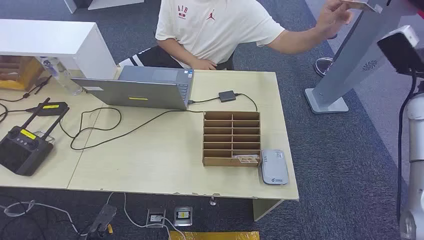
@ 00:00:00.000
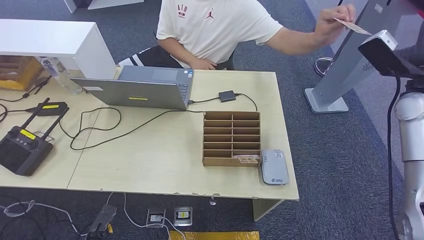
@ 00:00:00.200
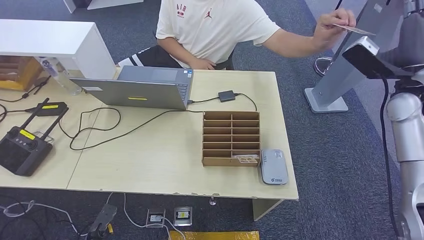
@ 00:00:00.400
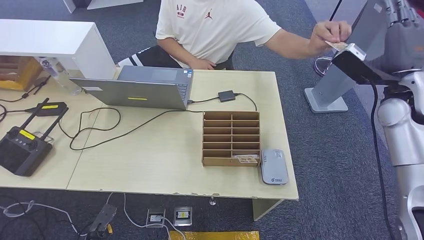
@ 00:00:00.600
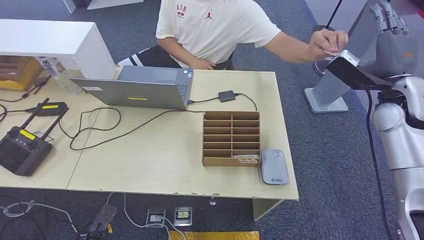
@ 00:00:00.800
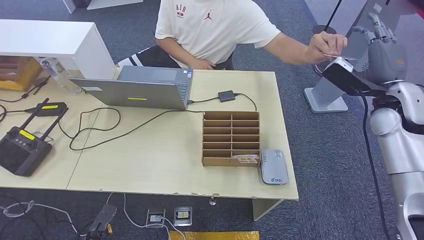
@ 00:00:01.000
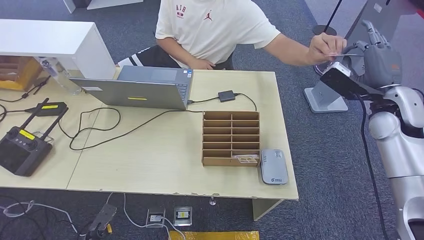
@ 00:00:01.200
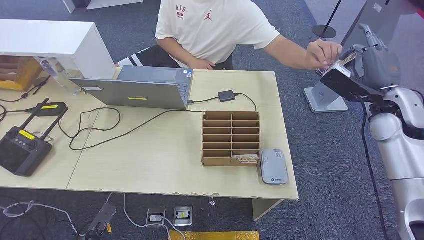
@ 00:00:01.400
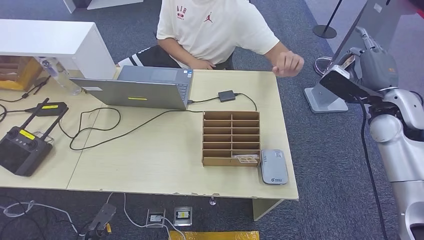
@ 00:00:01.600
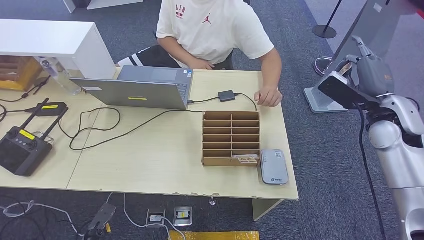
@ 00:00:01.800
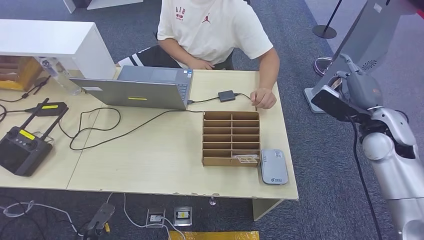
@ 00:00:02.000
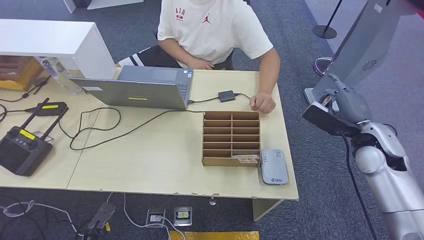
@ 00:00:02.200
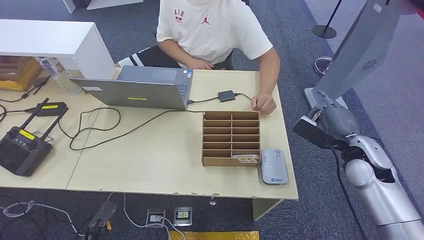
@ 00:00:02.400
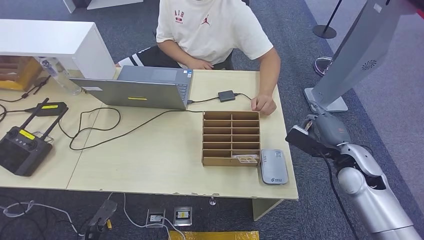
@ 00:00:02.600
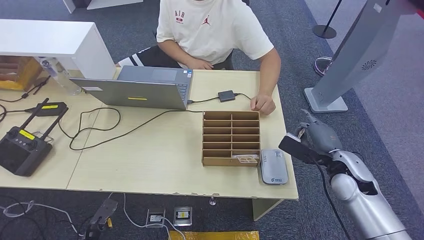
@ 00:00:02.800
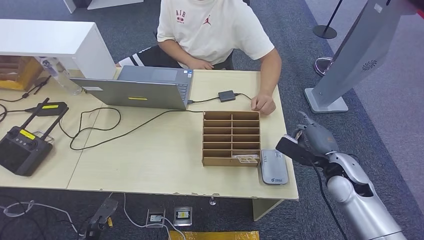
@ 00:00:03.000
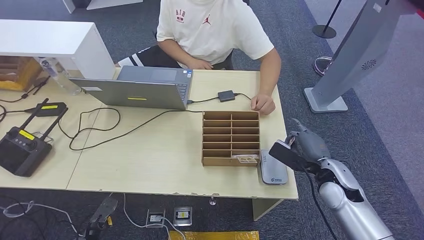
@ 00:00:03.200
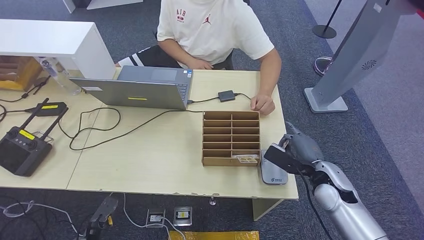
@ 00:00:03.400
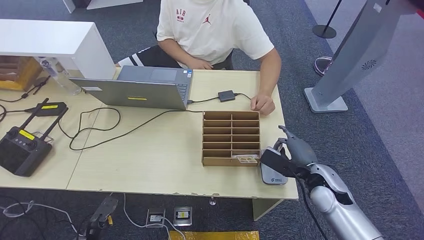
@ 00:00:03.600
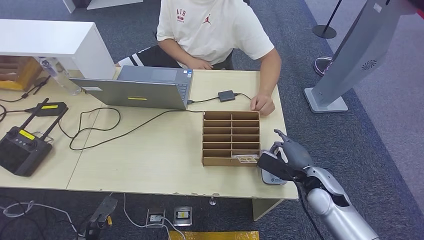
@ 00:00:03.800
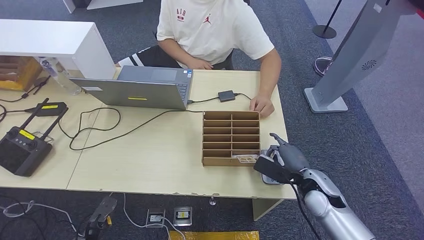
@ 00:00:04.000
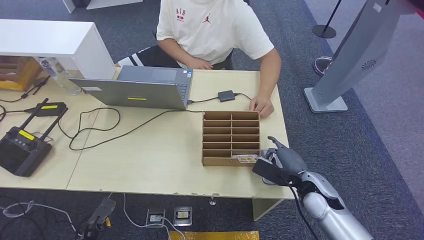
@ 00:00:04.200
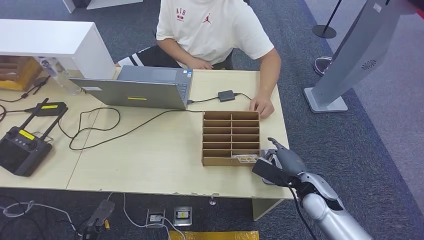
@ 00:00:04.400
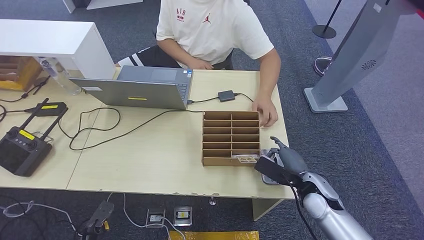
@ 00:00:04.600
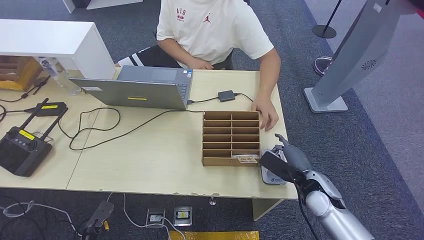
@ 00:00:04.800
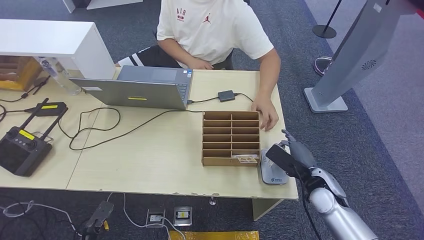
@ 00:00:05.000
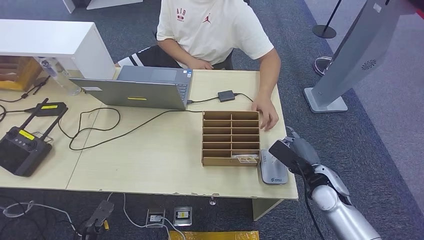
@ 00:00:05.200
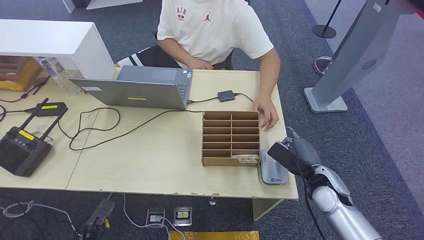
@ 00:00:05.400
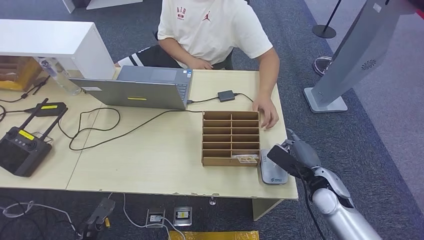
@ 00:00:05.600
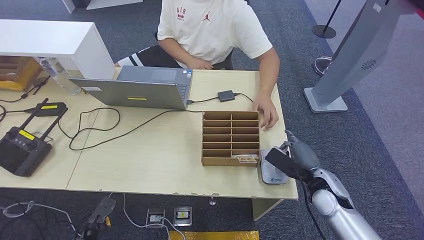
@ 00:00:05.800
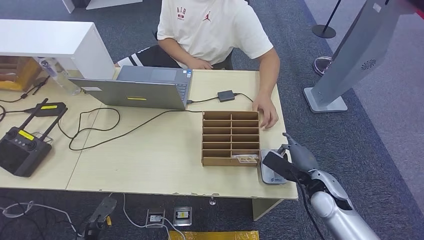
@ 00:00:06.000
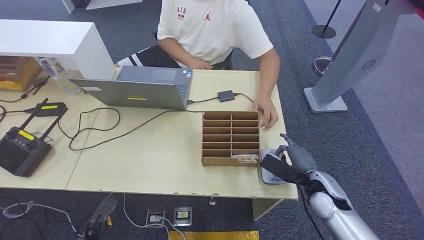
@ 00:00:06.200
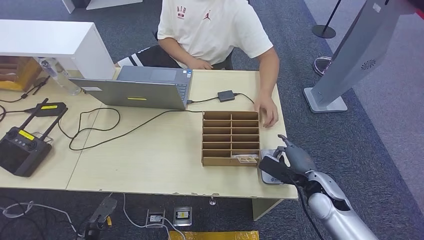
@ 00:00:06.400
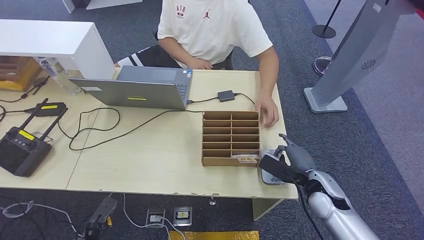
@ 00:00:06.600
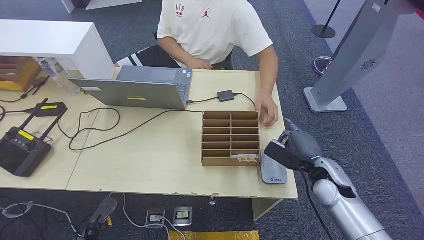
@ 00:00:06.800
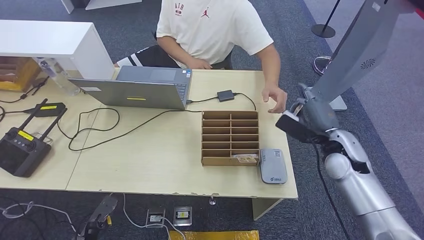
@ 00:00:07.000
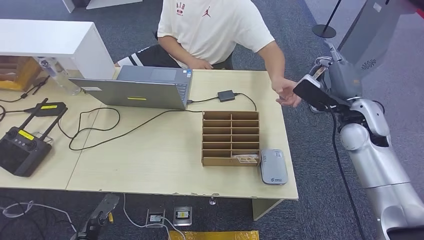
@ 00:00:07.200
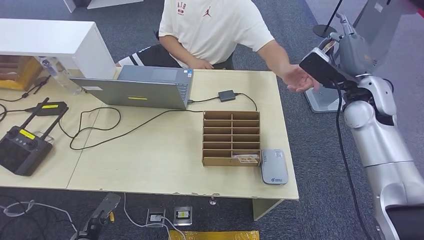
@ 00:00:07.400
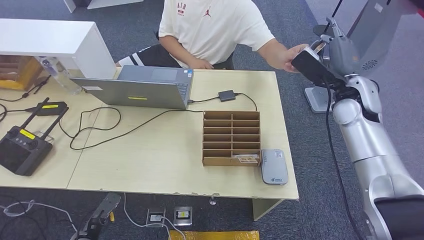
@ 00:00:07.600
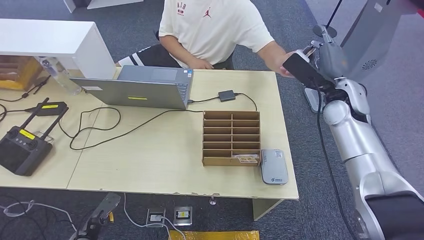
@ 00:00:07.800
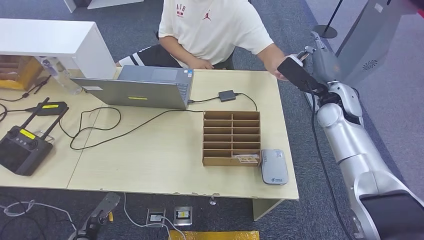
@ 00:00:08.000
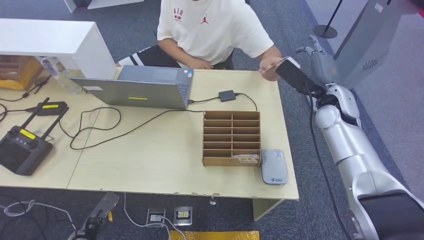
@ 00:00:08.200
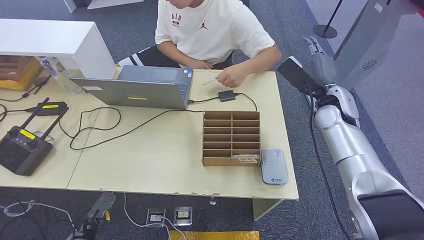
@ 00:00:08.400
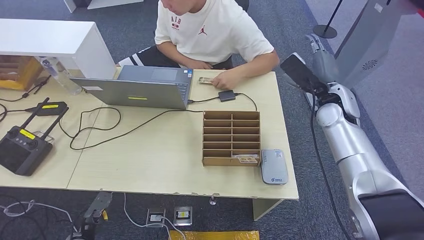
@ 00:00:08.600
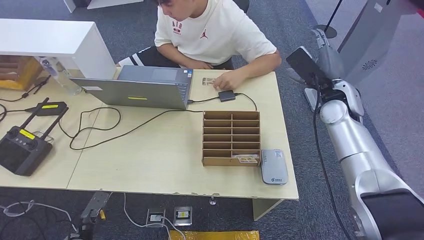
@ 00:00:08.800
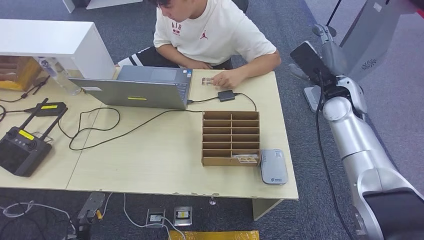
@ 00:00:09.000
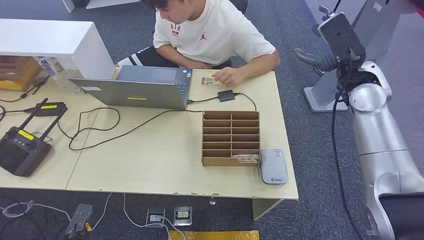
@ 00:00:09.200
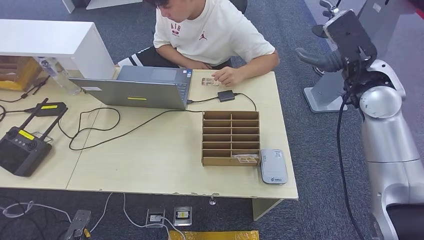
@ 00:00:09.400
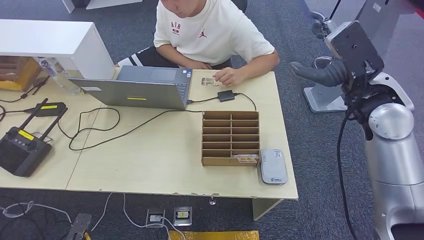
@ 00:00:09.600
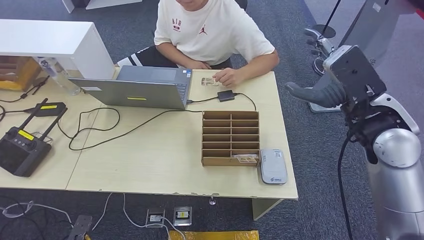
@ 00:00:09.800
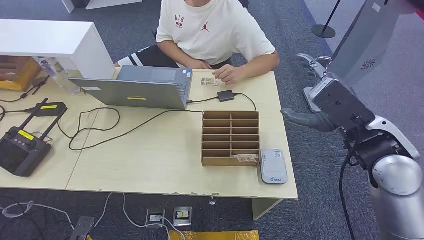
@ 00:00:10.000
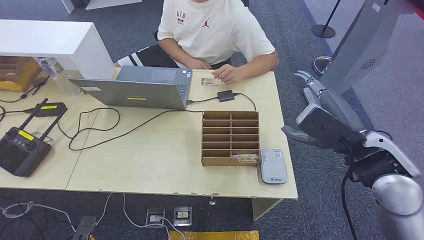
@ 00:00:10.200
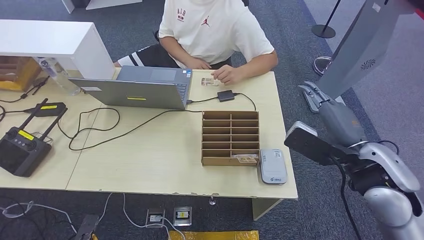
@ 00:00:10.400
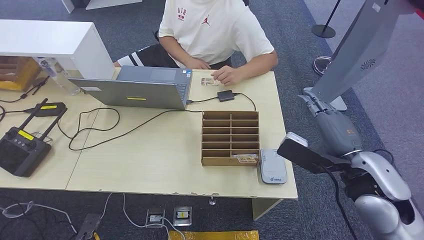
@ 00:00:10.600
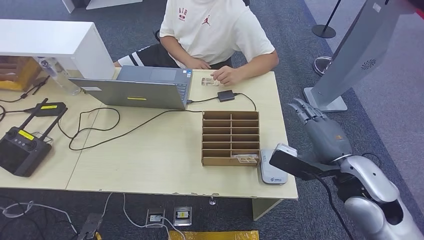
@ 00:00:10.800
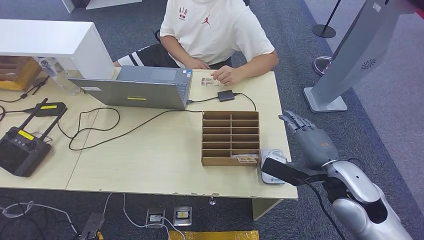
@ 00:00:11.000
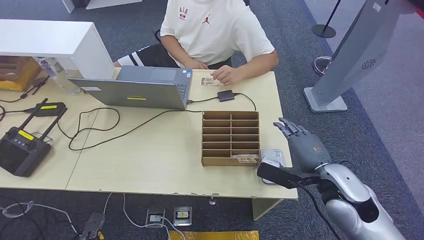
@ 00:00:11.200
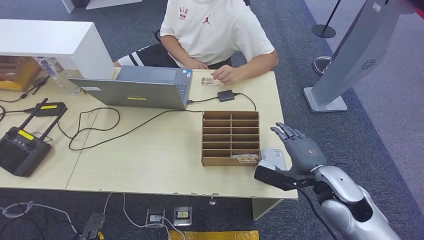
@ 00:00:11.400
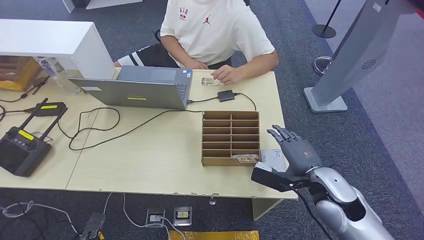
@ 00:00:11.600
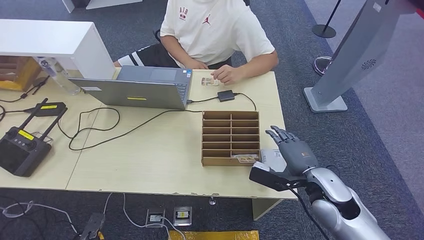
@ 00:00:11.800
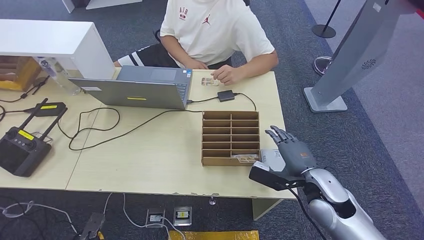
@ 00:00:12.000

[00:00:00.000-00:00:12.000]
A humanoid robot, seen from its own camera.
Step, 00:00:00.000 to 00:00:01.600: Take the ID card from the person's hand.
Step, 00:00:01.800 to 00:00:04.200: Place the ID card on the card reader.
Step, 00:00:04.600 to 00:00:09.400: Hand the ID card to the person.
00:00:01.600 to 00:00:03.000: The right hand goes approximately 20 cm downward, backward and to the left.
00:00:03.000 to 00:00:04.400: The right hand is displaced downward by roughly 5 cm.
00:00:04.400 to 00:00:06.000: There are only small adjustments of the hands.
00:00:06.000 to 00:00:07.600: The right hand moves upward and forward, about 25 cm.
00:00:07.600 to 00:00:09.000: The hands move only a little.
00:00:09.000 to 00:00:10.400: The left hand is displaced backward by roughly 5 cm. Meanwhile the right hand shifts about 20 cm backward.
00:00:10.400 to 00:00:12.000: The right hand heads downward, covering some 15 cm.

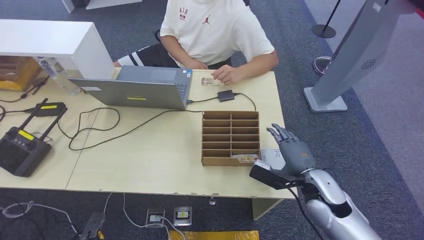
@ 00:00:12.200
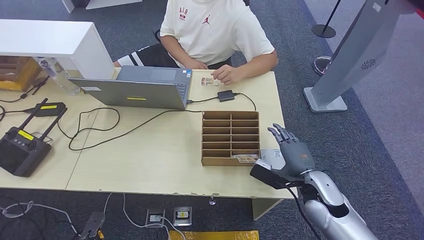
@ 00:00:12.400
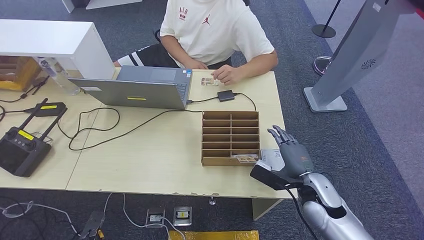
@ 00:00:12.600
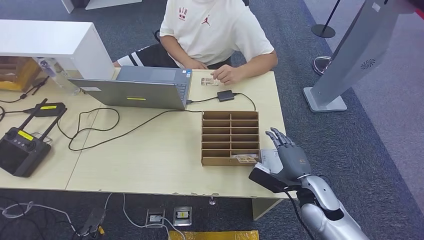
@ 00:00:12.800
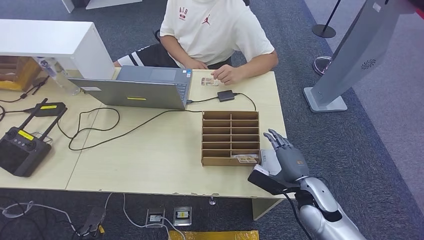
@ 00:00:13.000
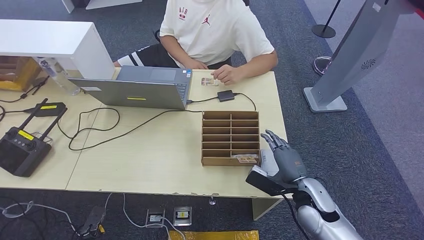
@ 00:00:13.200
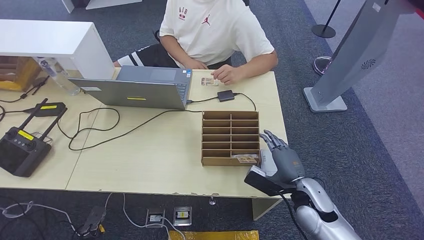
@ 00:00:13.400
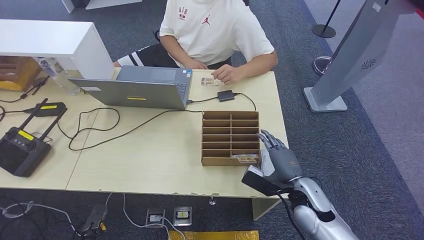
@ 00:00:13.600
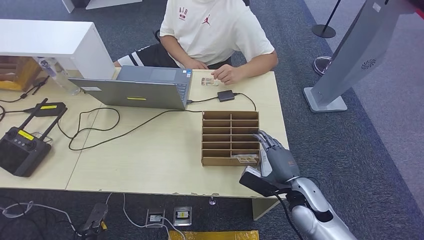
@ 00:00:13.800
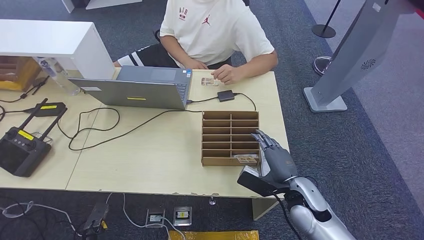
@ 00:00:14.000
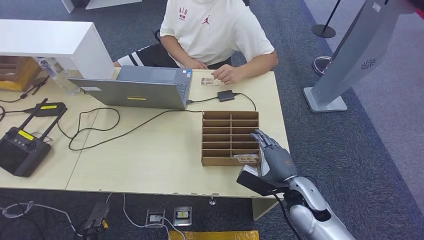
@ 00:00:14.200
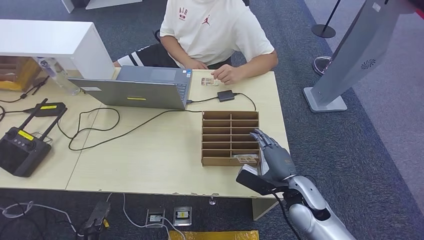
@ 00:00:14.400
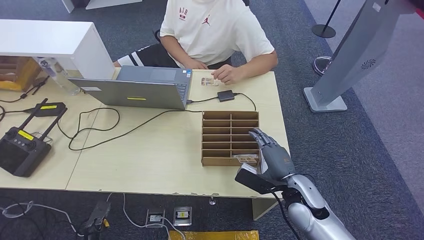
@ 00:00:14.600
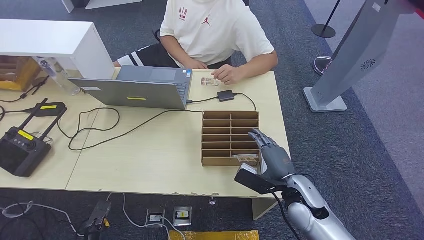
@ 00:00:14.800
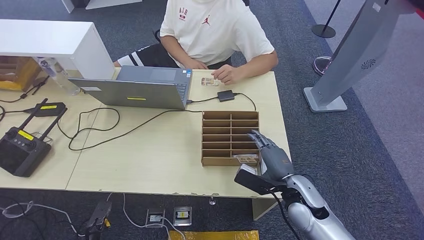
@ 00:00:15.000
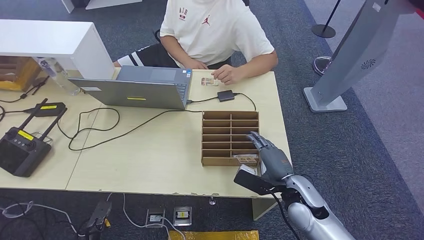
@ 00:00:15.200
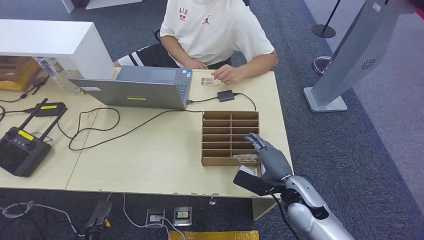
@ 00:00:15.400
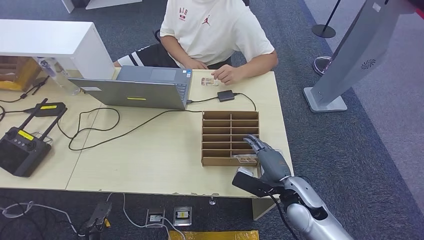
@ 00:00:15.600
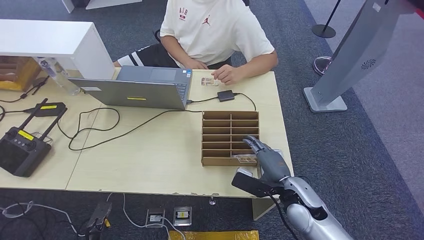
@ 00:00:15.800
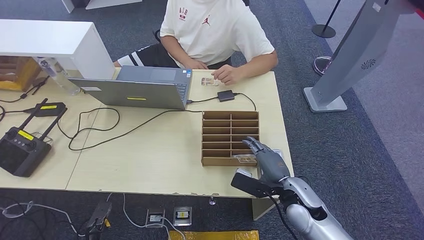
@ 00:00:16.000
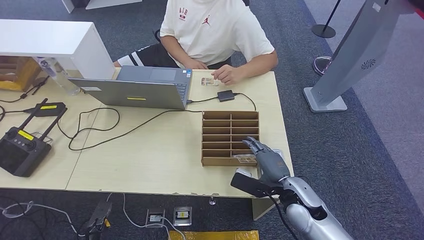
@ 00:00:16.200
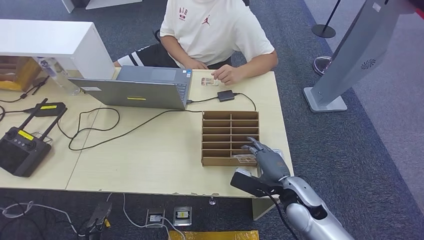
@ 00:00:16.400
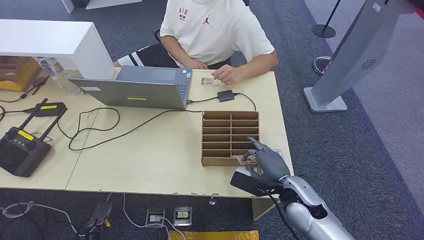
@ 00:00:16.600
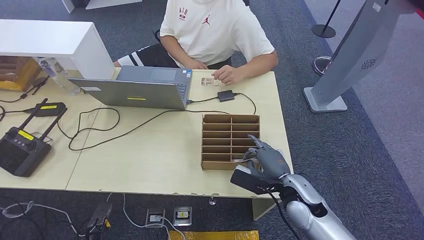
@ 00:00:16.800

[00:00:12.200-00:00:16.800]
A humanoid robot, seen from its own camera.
00:00:12.200 to 00:00:16.800: The hands make only small movements.
